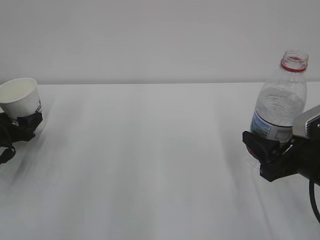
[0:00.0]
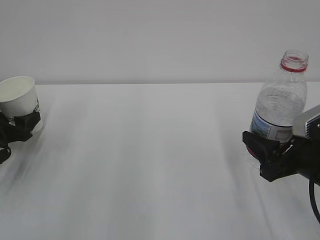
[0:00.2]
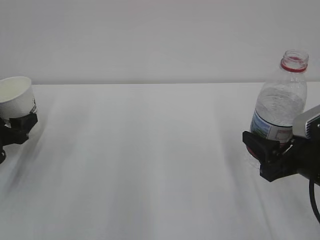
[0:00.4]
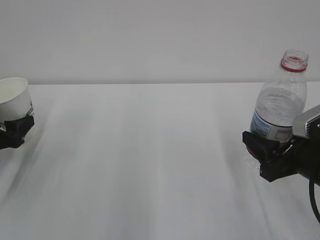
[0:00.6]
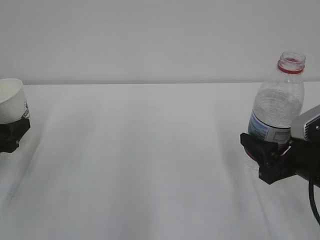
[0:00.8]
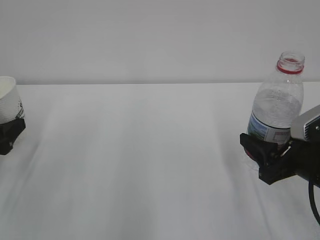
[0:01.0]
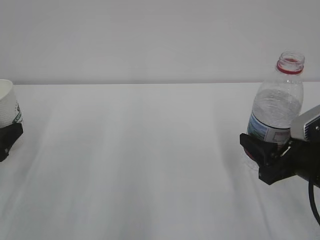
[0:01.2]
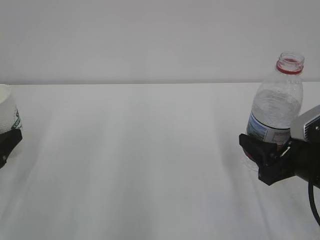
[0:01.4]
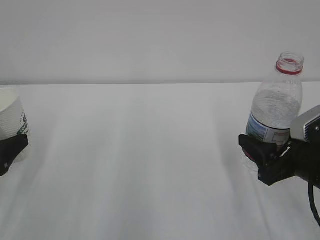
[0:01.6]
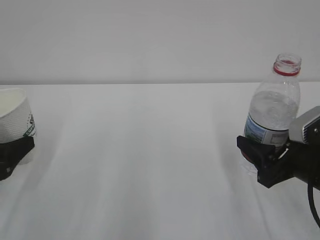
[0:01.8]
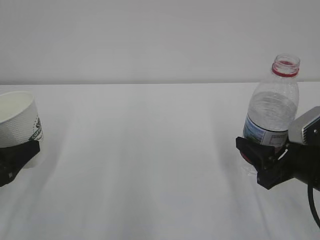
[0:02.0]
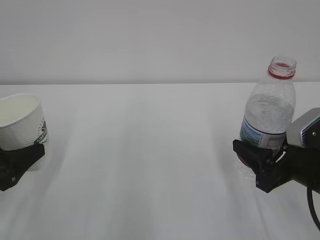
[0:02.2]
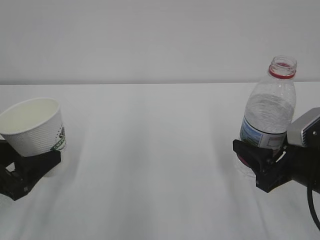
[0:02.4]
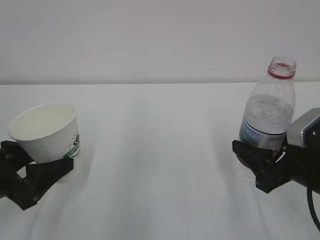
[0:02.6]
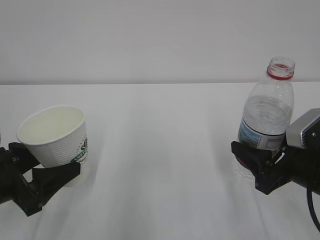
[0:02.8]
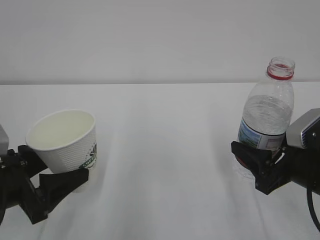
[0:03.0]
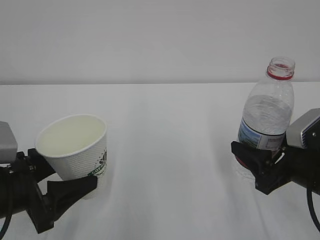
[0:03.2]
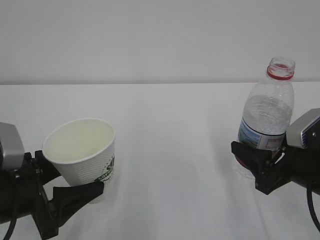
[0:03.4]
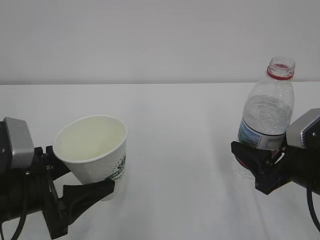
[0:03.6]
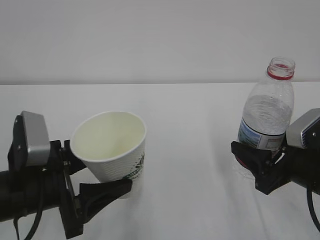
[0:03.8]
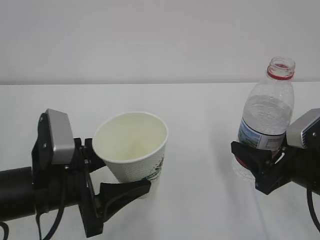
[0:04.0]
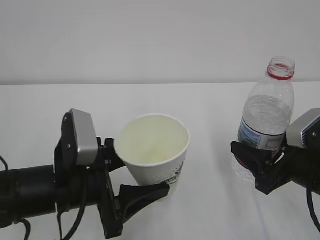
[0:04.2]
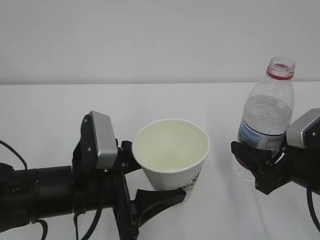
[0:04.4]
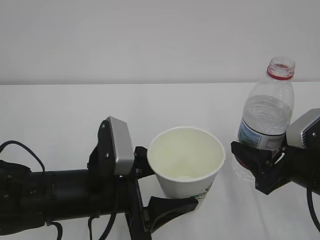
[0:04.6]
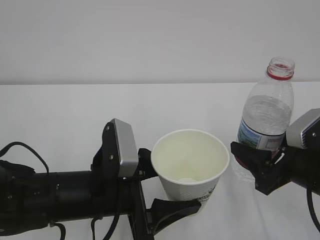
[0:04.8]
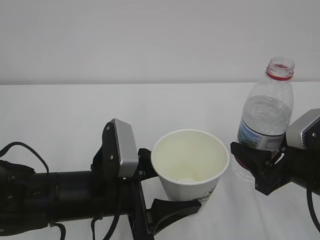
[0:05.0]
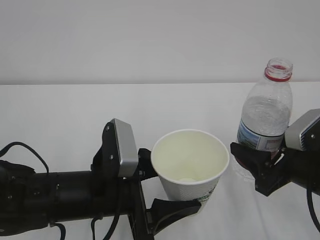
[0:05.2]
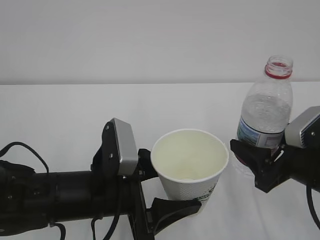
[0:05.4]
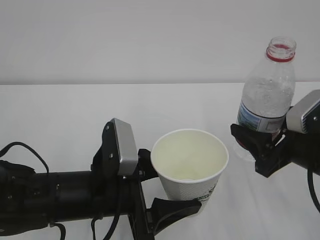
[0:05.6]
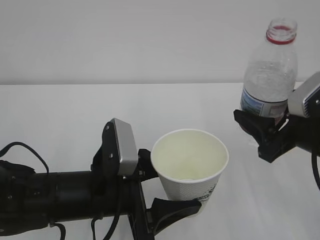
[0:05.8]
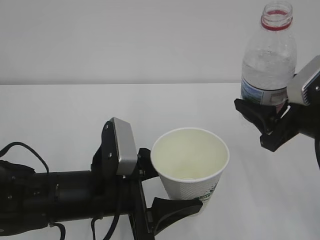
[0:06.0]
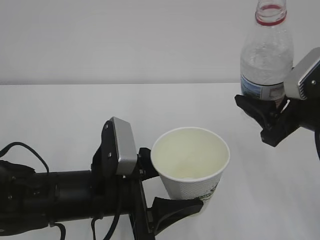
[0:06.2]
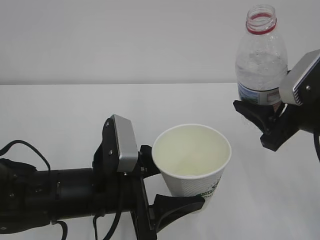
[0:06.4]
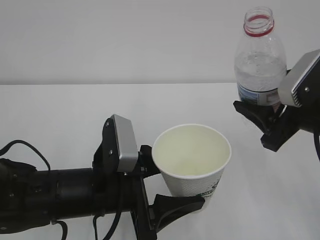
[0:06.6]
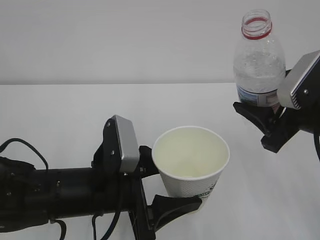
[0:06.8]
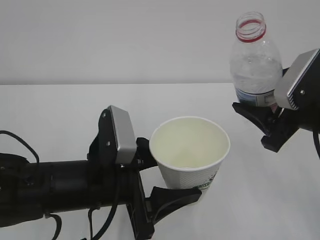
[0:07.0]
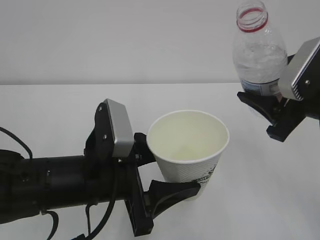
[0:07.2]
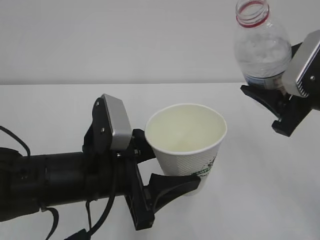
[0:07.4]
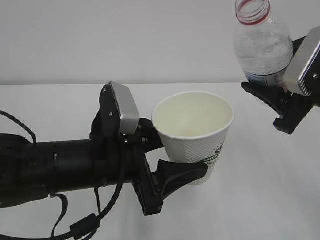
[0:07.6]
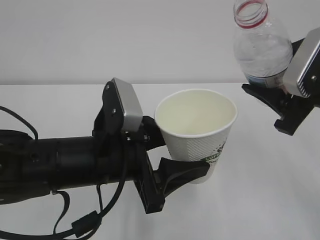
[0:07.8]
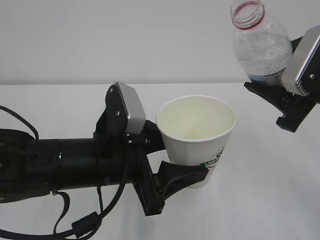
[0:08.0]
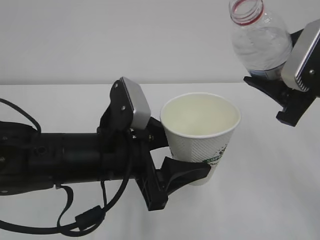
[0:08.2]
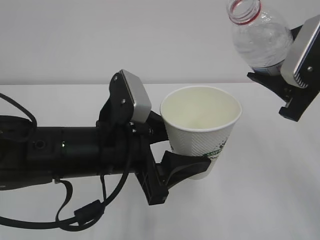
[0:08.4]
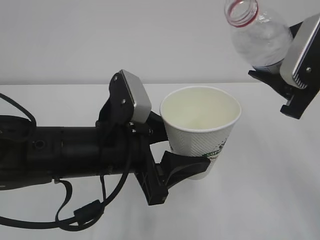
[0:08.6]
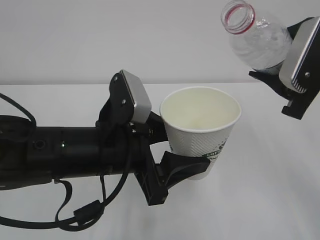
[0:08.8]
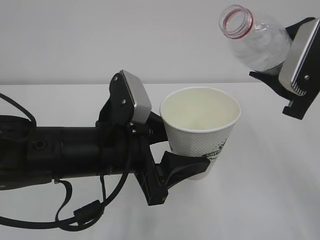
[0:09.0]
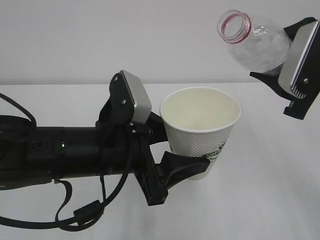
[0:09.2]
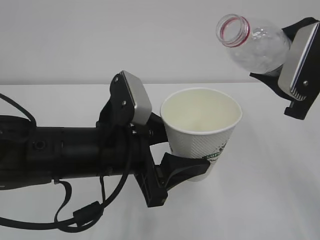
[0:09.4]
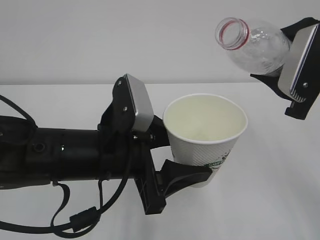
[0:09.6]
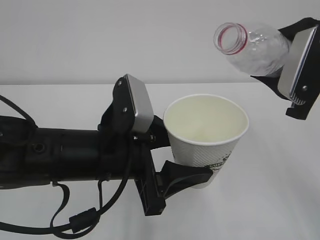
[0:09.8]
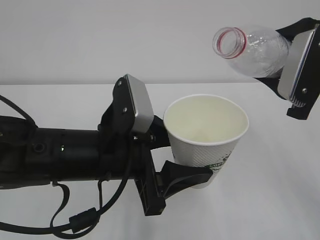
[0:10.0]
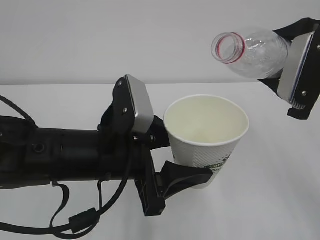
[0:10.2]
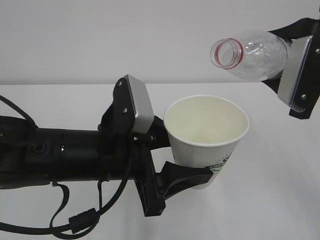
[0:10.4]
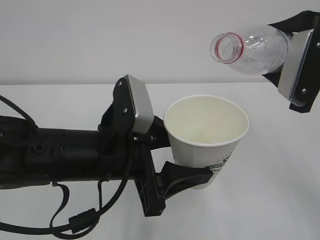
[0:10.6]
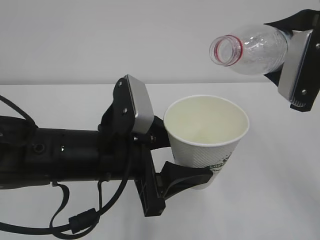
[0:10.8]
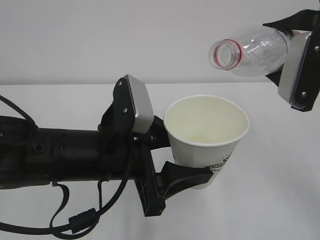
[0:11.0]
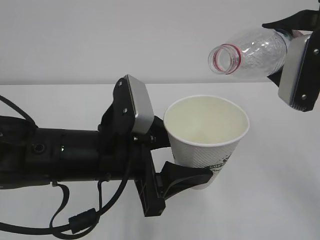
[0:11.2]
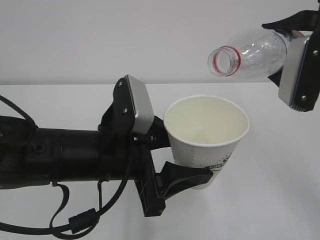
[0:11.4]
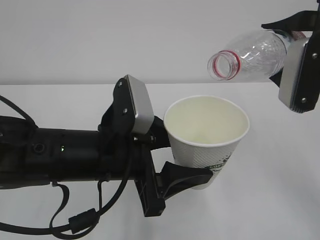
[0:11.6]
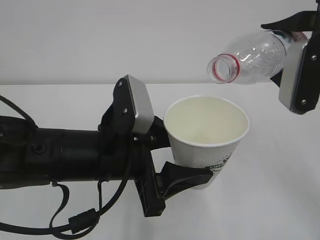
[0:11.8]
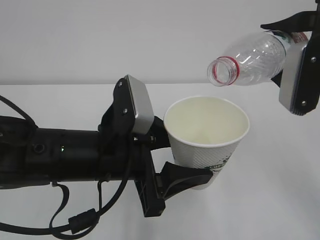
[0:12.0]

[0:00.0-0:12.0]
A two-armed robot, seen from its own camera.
0:00.0 to 0:01.6: The left gripper goes roughly 15 cm backward and upward.
0:01.6 to 0:03.0: The left gripper shifts approximately 10 cm to the right.
0:03.0 to 0:04.4: The left gripper is displaced to the right by about 15 cm.
0:04.4 to 0:06.0: The right gripper heads upward, covering roughly 5 cm.
0:07.6 to 0:09.0: The grippers make only small movements.
0:09.0 to 0:10.4: The grippers stay close to where they were, moving slightly.
0:10.4 to 0:12.0: The grippers stay close to where they were, moving slightly.

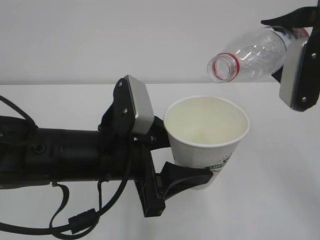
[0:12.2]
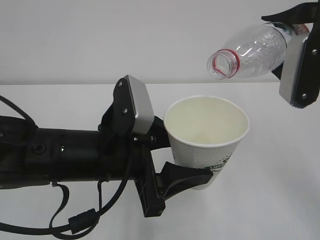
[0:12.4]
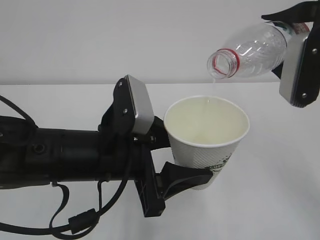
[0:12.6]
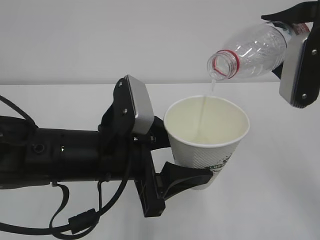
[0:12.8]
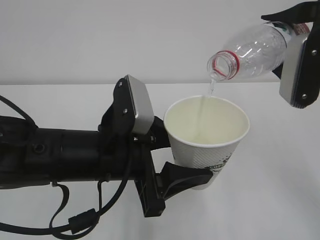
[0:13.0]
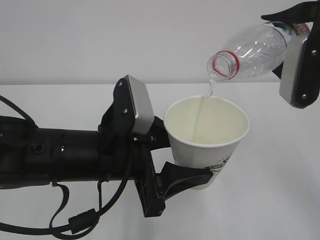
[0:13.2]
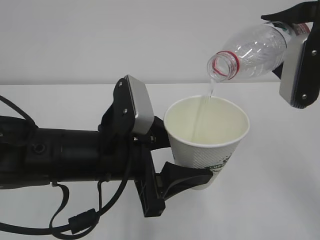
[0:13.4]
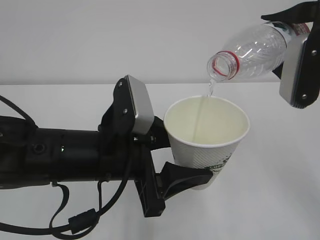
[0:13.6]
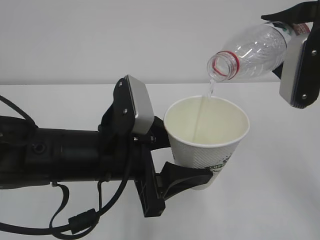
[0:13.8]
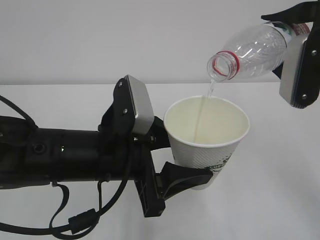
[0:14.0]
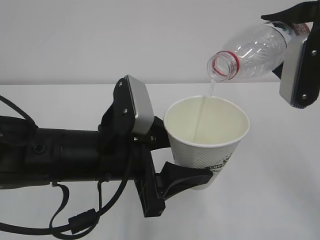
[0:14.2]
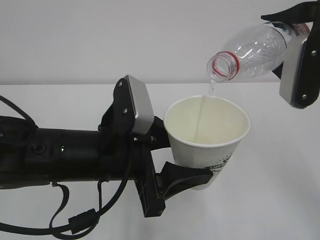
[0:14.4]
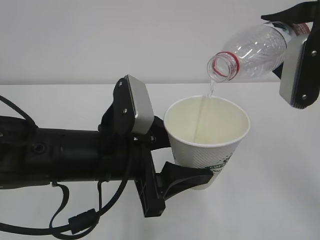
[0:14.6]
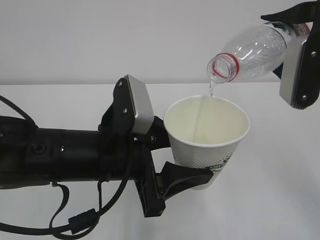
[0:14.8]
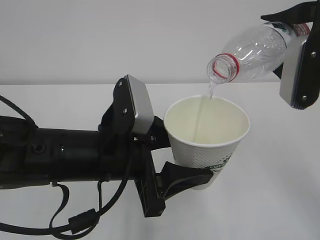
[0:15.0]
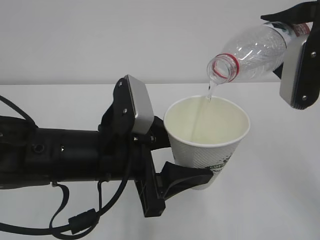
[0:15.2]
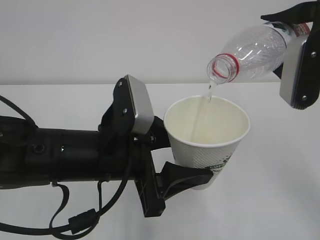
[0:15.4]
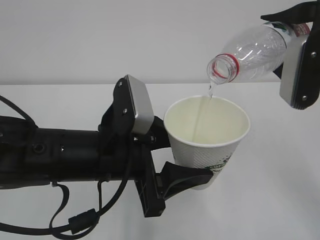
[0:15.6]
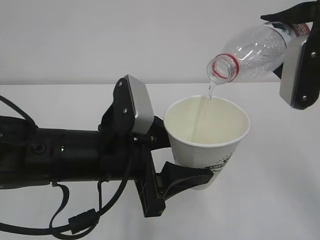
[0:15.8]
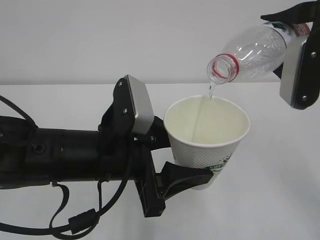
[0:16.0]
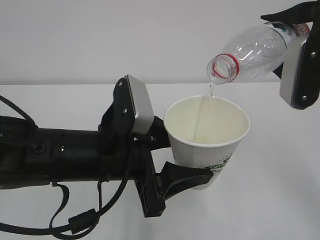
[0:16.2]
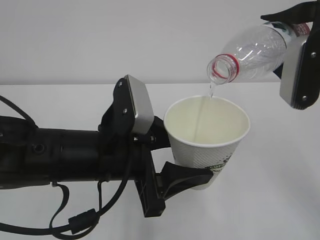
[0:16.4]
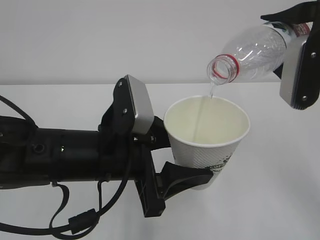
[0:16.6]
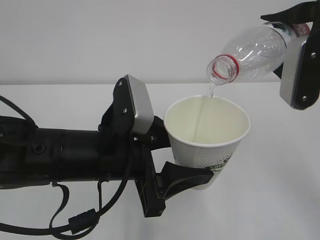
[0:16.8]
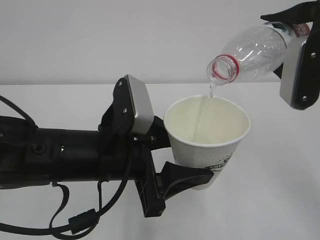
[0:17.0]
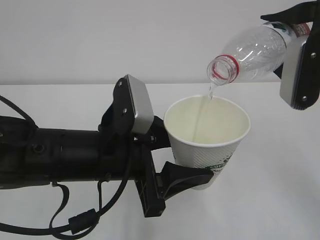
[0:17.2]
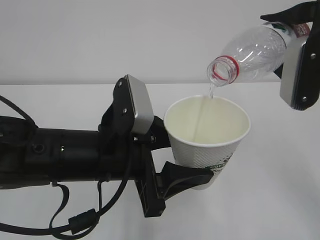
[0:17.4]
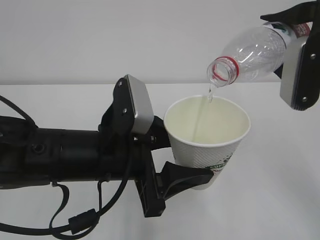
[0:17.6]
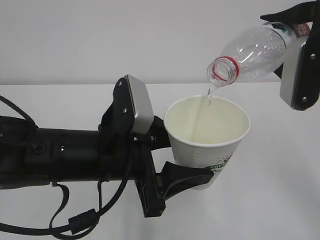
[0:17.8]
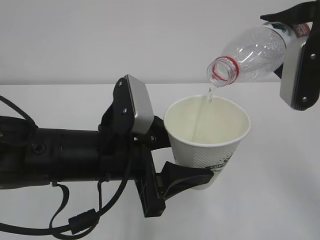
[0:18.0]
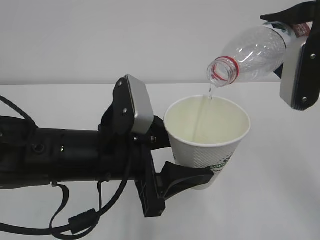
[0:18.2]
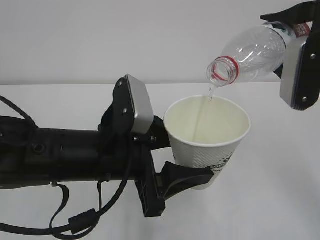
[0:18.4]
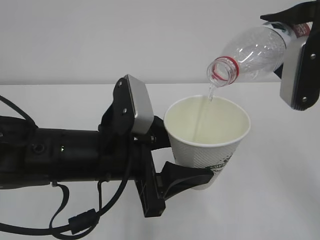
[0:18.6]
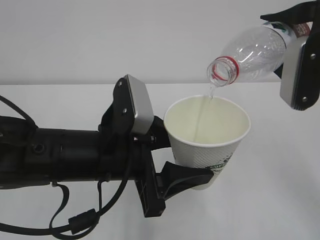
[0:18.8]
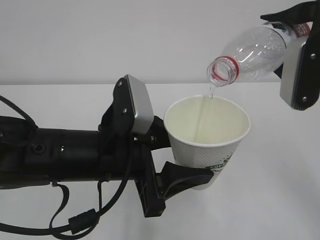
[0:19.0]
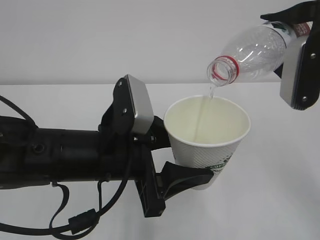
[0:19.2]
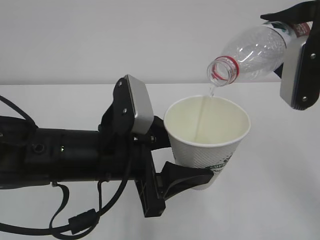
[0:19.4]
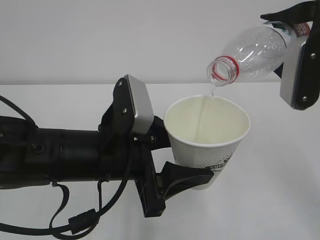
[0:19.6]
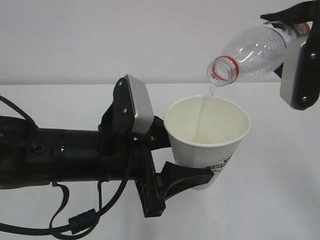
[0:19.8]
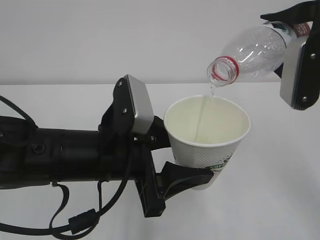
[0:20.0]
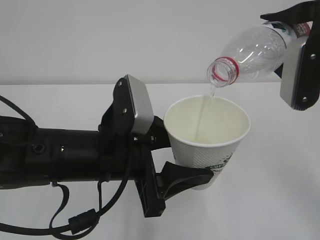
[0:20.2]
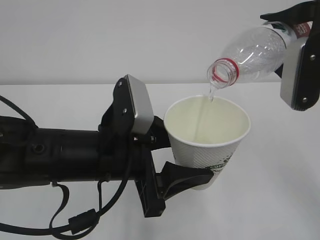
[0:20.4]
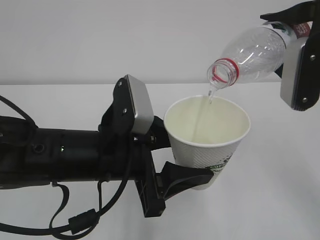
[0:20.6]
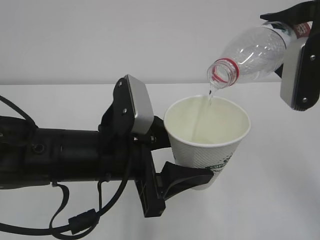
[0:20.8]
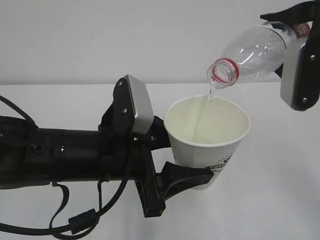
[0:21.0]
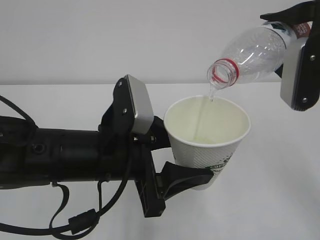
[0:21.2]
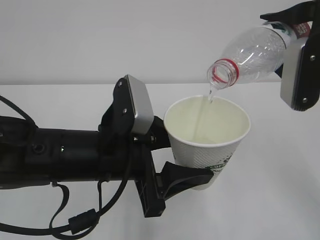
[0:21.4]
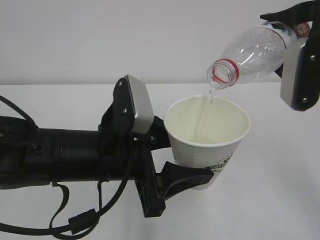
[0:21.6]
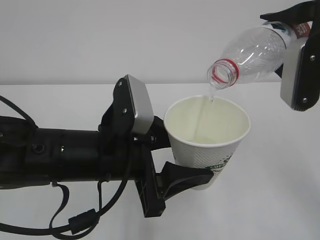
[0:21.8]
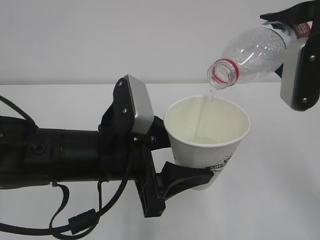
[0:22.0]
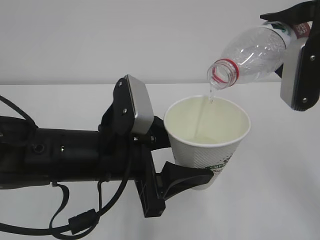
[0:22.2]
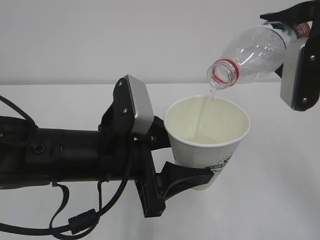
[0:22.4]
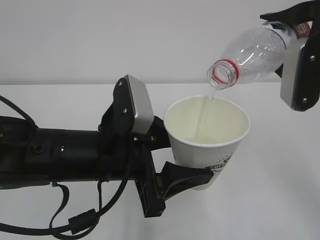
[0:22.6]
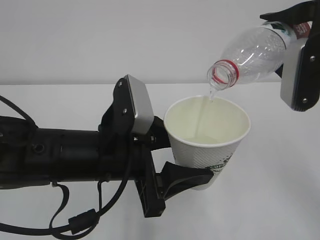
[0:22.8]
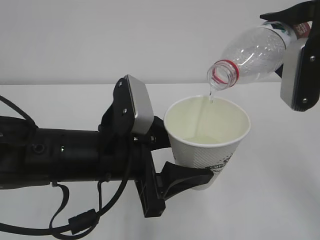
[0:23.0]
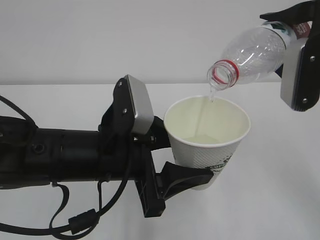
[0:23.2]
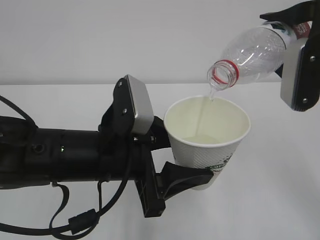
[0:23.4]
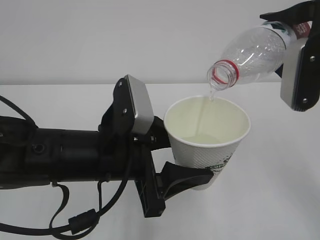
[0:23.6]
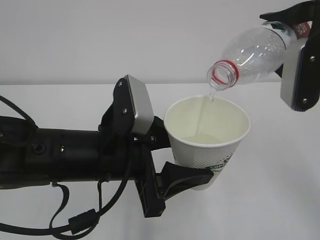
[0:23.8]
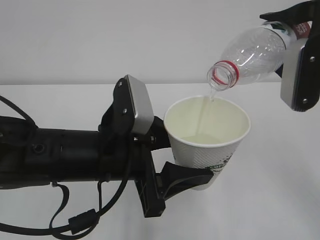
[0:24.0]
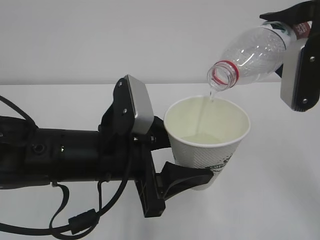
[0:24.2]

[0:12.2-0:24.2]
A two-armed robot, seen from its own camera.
0:12.2 to 0:19.8: The two grippers keep their place.
0:19.8 to 0:24.2: Both grippers stay put.
